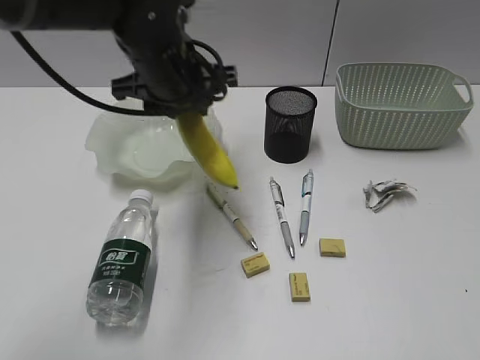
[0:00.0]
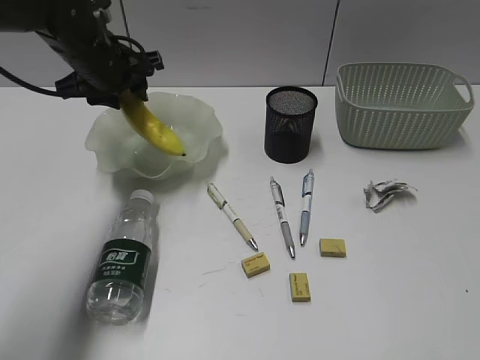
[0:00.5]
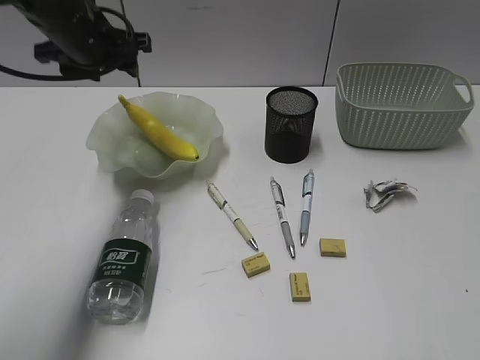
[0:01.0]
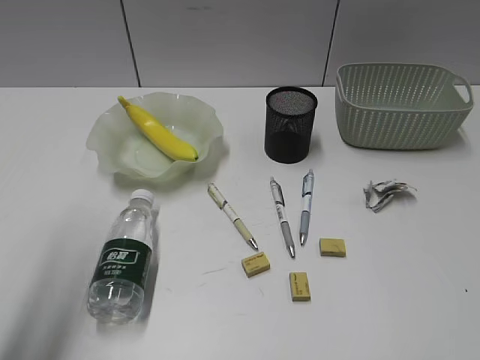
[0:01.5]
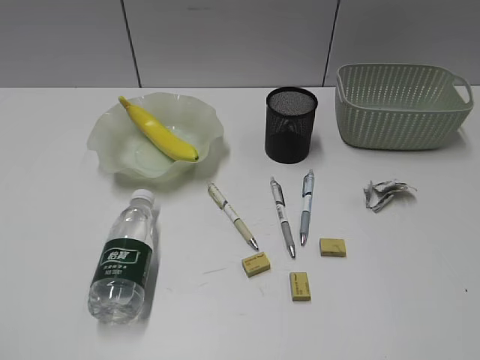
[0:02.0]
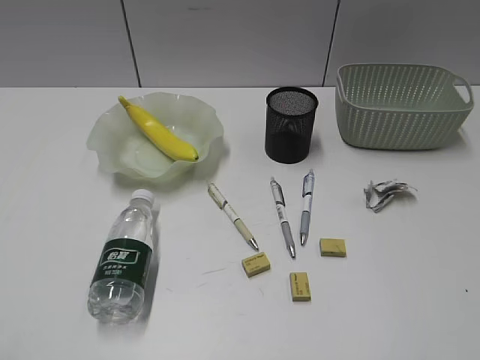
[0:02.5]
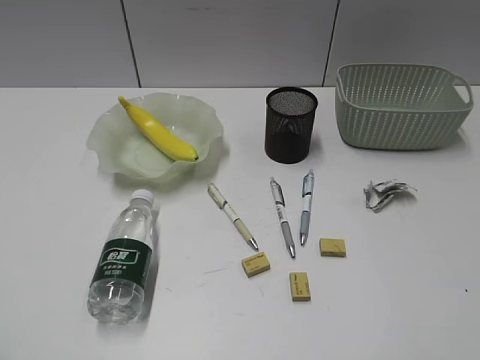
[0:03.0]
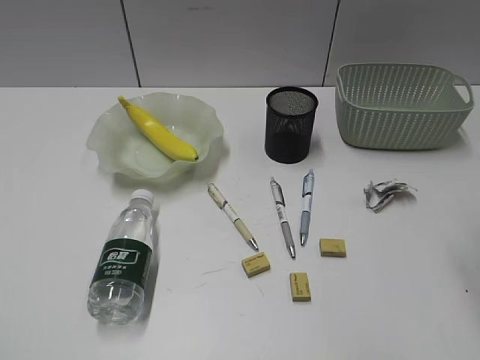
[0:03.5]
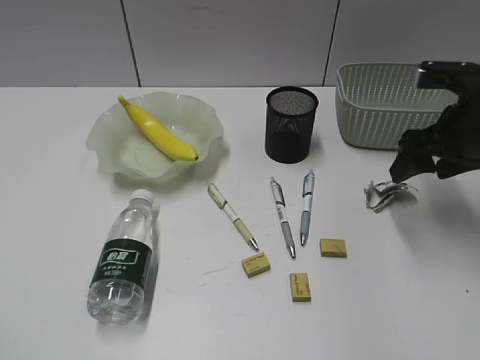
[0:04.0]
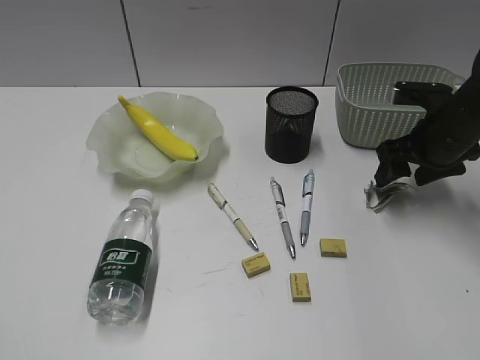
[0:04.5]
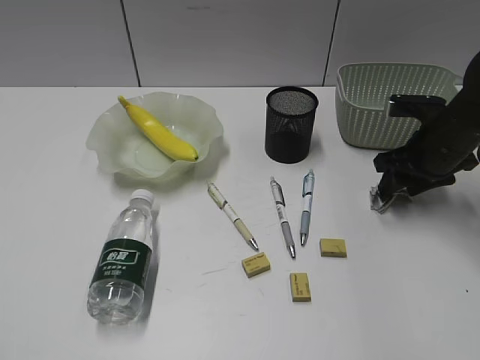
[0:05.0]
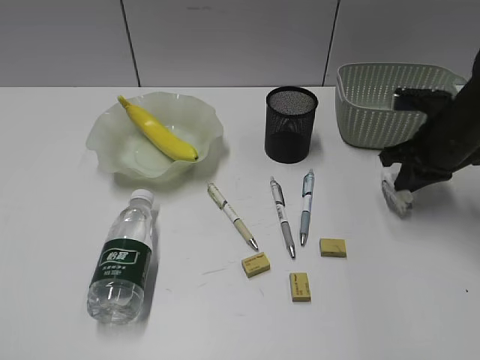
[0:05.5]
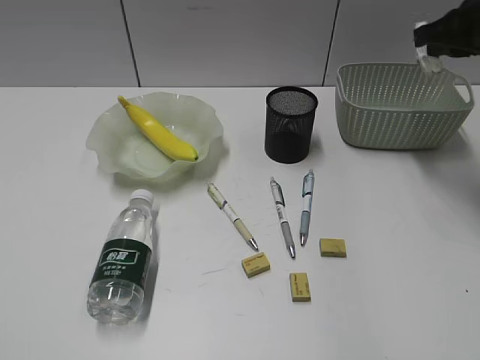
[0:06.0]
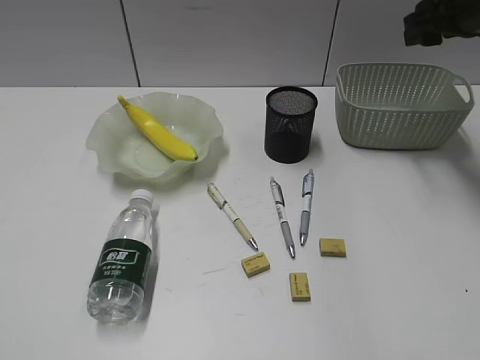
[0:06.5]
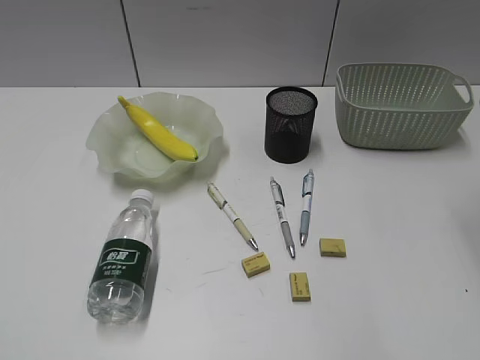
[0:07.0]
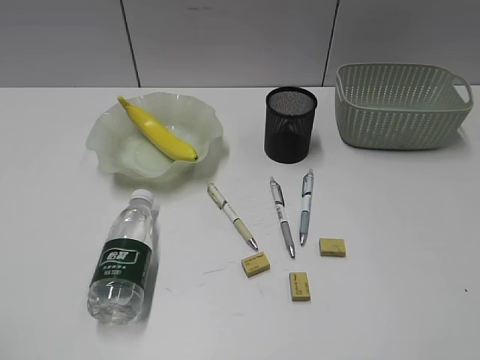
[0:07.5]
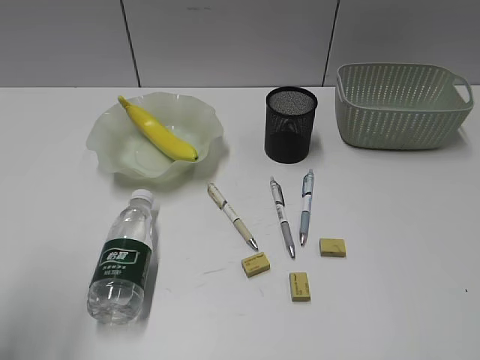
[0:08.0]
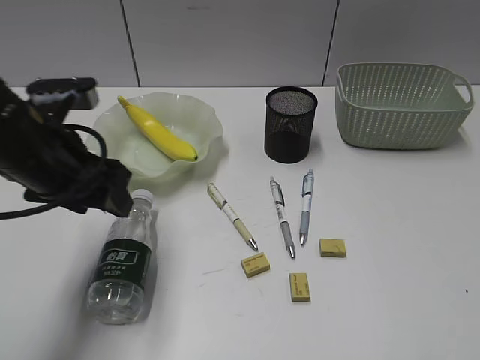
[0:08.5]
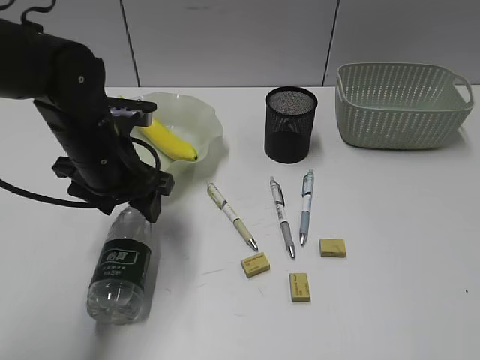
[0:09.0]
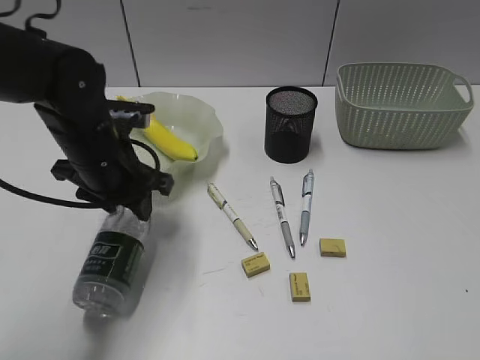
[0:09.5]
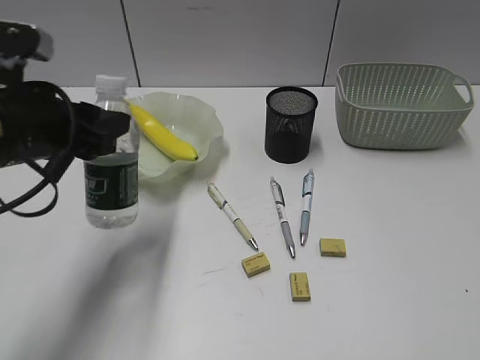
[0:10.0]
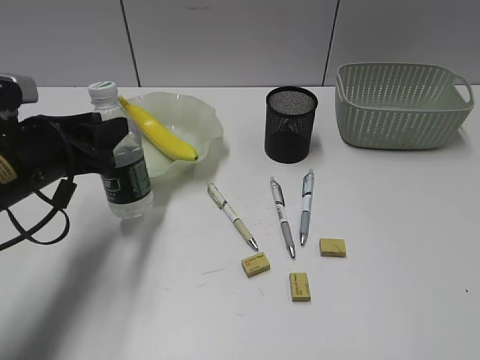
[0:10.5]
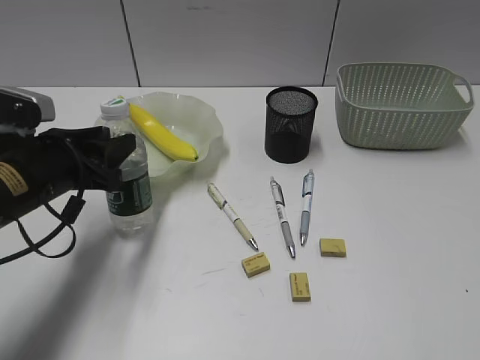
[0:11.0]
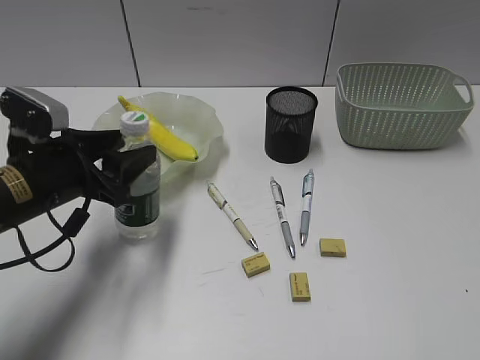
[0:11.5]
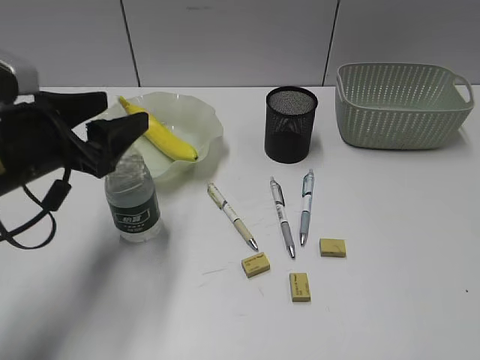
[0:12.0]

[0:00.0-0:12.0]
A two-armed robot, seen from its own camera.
Step, 0:01.0 to 0:05.0: Grasp the waste paper with right gripper.
Step, 0:05.5 to 0:06.0: Place the waste paper in the basket with right gripper.
Step, 0:06.5 to 0:09.0: Grasp the bottle with left gripper.
Step, 0:09.5 to 0:11.5: Stand the bottle with left gripper.
0:00.0 to 0:02.0: The left gripper moves backward and to the left, some 50 cm.
0:02.0 to 0:04.0: The right gripper moves forward, about 35 cm, and opens.
0:04.0 to 0:06.0: The right gripper shifts approximately 10 cm upward and forward, and closes up.
0:06.0 to 0:08.0: The left gripper shifts roughly 15 cm forward, and opens up. The right gripper heads backward, covering approximately 40 cm, and opens.
0:08.0 to 0:10.0: The left gripper travels forward, to the right and downward by approximately 15 cm.
0:10.0 to 0:12.0: The left gripper opens its fingers.

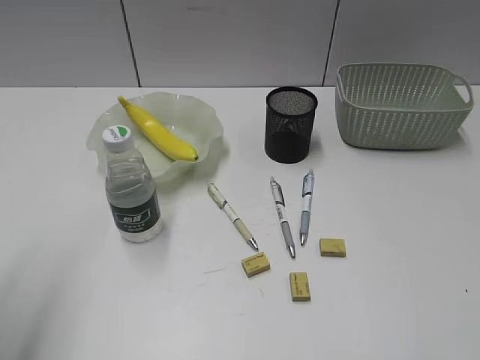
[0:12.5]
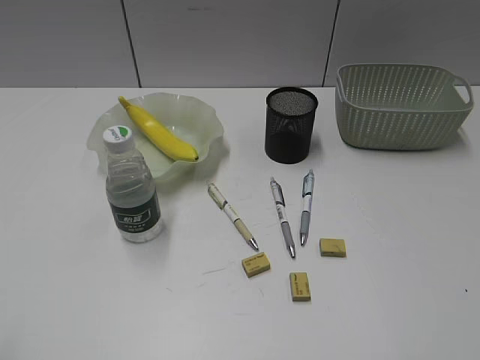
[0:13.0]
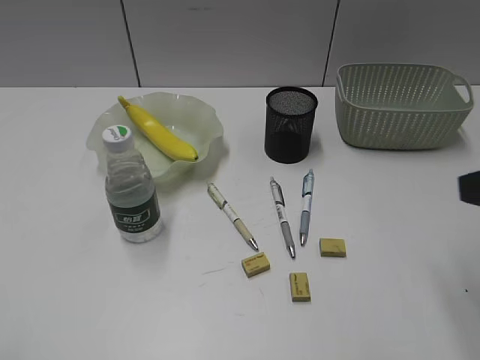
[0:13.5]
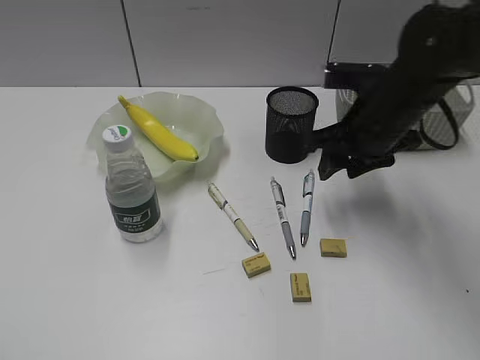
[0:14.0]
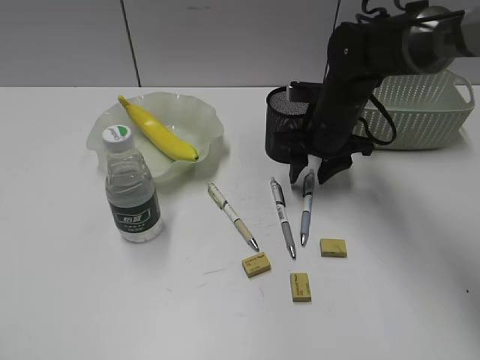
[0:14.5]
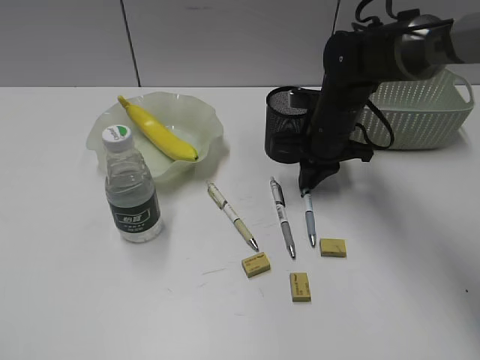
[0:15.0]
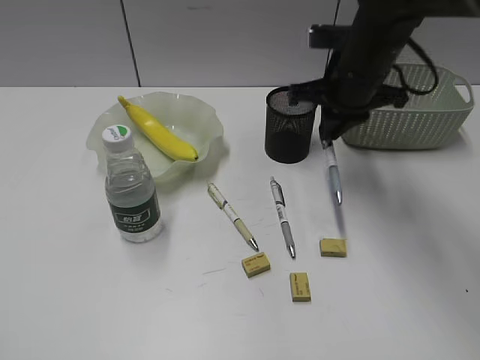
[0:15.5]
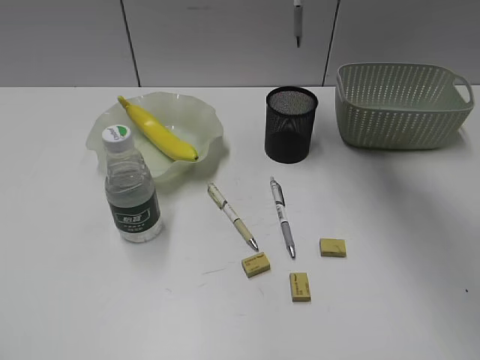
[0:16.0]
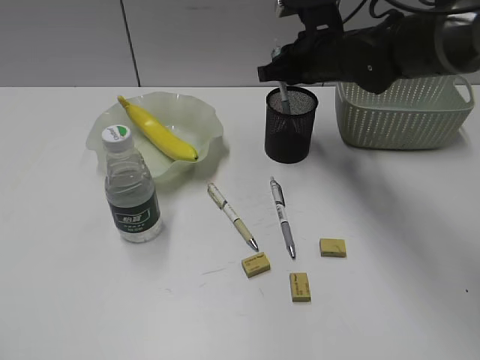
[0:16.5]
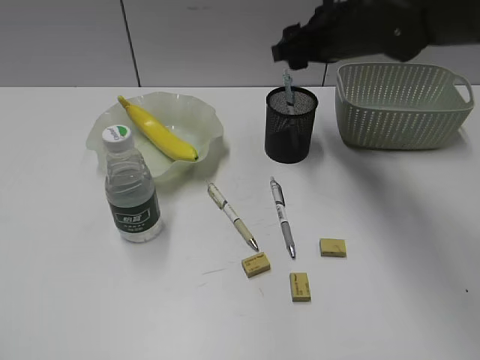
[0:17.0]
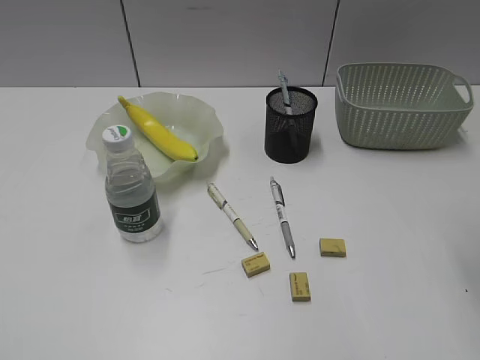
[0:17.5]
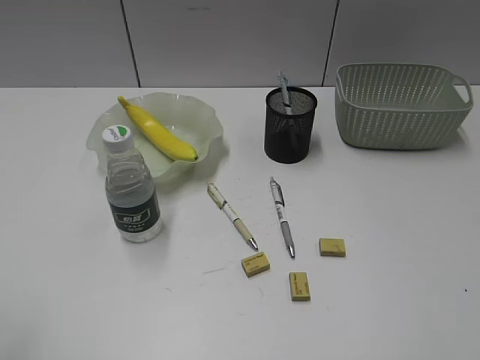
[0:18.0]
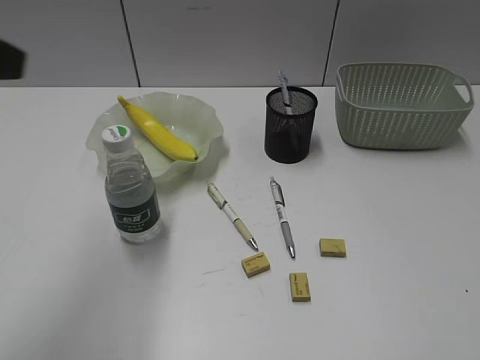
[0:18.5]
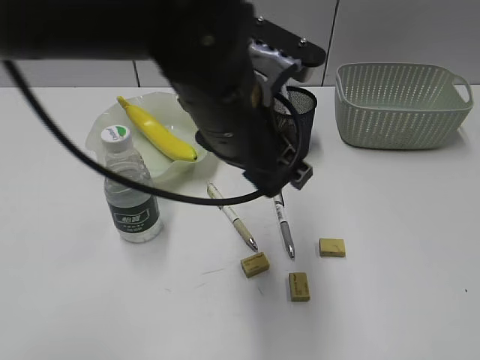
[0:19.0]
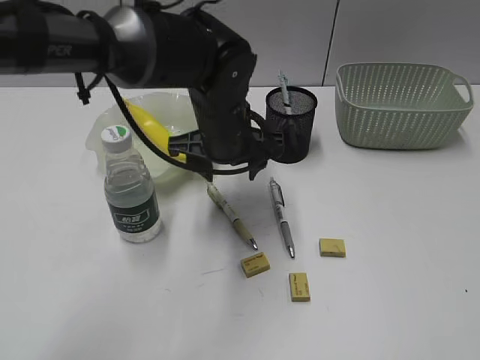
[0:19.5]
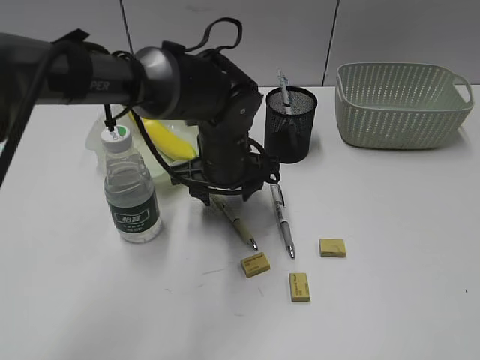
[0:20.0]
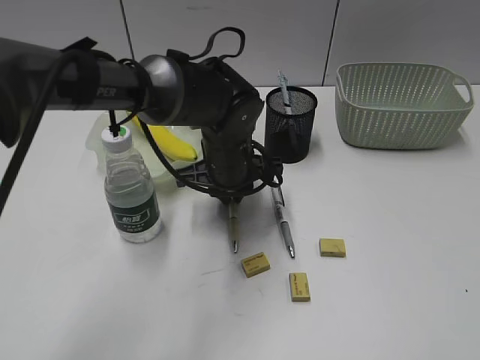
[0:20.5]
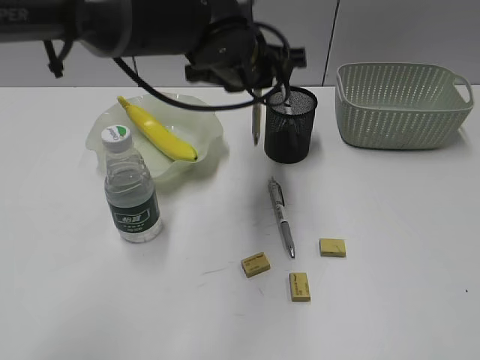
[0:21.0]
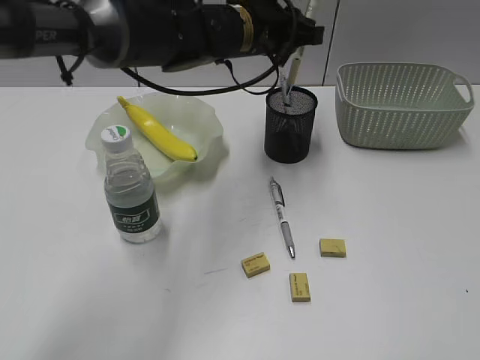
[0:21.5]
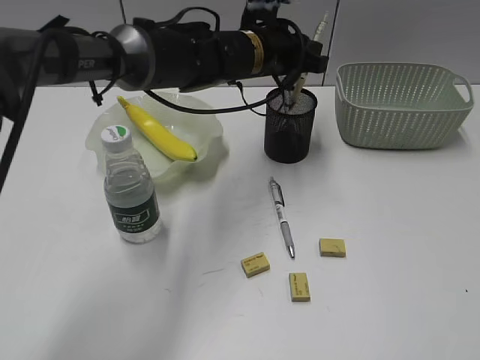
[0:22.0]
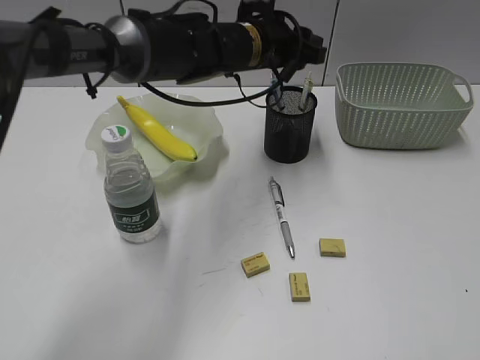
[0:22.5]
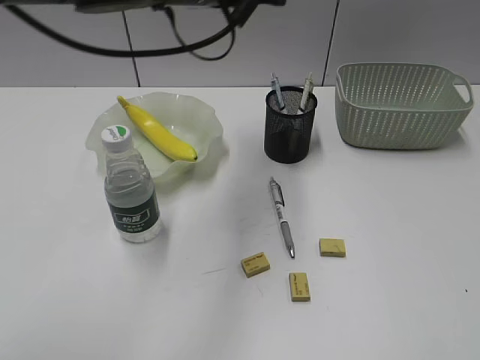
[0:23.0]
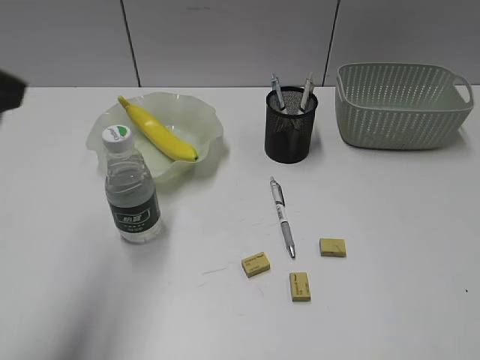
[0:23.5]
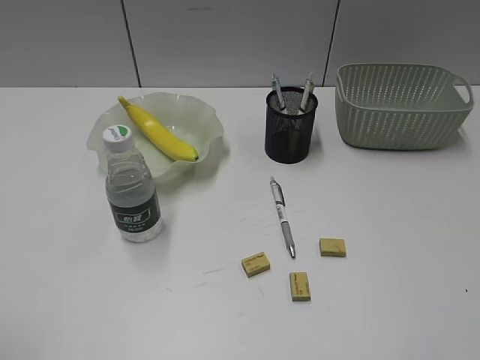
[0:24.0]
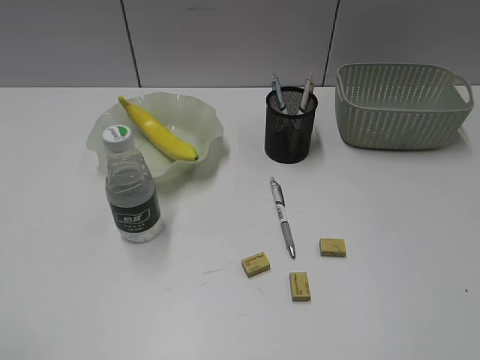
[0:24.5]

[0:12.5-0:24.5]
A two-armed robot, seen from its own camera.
Step, 0:12.5 to 0:15.0: Grasp the blue pen with right gripper.
Step, 0:15.5 to 0:16.5: Place the blue pen in pen holder with right gripper.
Step, 0:17.0 to 0:20.5: Grasp the yellow pen with left gripper.
Step, 0:21.0 to 0:22.5: Place the yellow pen in pen holder with left gripper.
0:12.5 to 0:14.5: The left gripper heads backward, covering about 15 cm, while the right gripper goes approximately 50 cm forward, to the left and downward.
0:14.5 to 0:16.5: The right gripper reaches roughly 20 cm upward, then returns, and closes its fingers.
0:16.5 to 0:18.5: The right gripper travels backward and to the right by approximately 50 cm, and opens up; the left gripper moves forward and to the right, approximately 20 cm.
0:18.5 to 0:20.5: The left gripper moves downward, to the right and forward, some 35 cm, and opens, then closes once more.
0:20.5 to 0:22.5: The left gripper is displaced upward and forward by approximately 15 cm, and opens.
0:22.5 to 0:24.5: The left gripper goes about 50 cm backward and to the left.

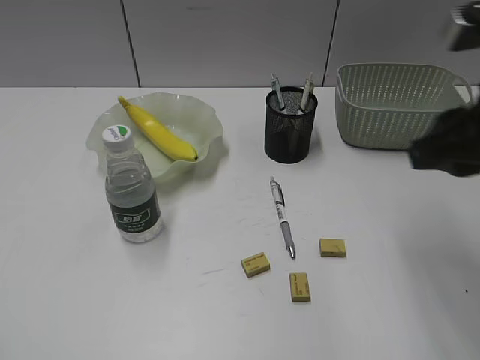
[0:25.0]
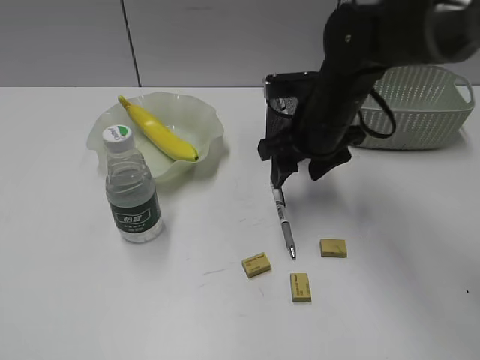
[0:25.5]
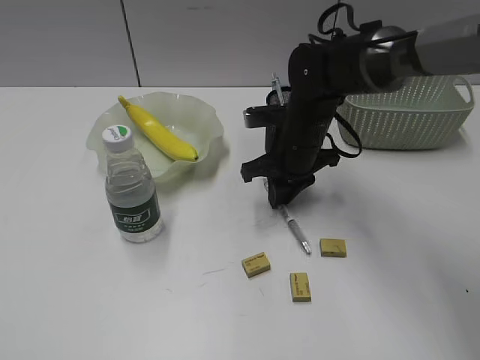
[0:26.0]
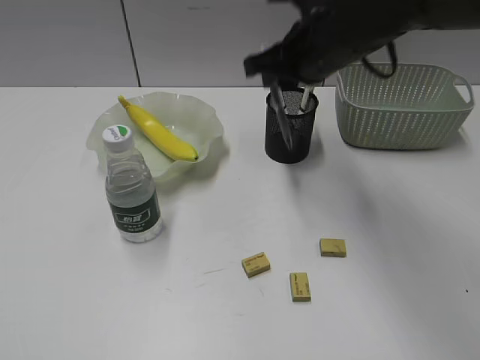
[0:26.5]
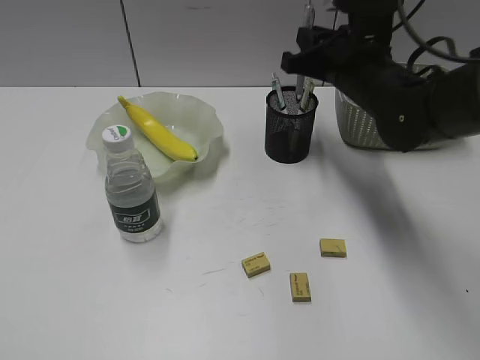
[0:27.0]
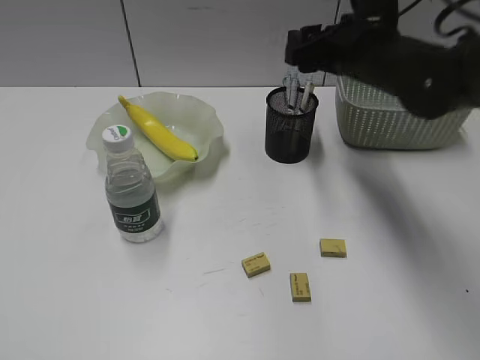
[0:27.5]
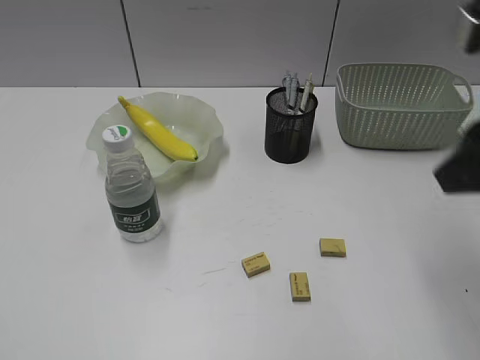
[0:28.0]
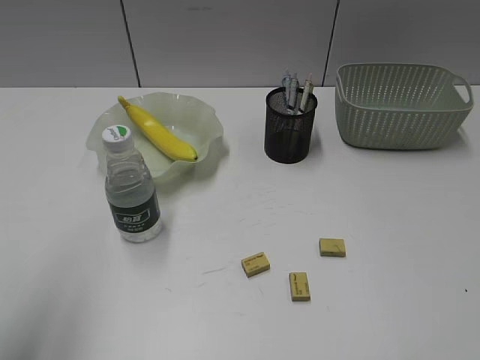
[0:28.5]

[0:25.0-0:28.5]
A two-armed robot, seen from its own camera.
Step, 0:26.5 to 0:27.0: Place the gray pen in pen holder with right gripper.
0:25.0 to 0:27.0: The right gripper goes up and down, approximately 20 cm each way, reversing 2 times, and opens, then closes once more.
0:27.0 to 0:28.5: The left gripper goes about 10 cm forward; the right gripper travels backward and to the right by roughly 40 cm, and opens up.
